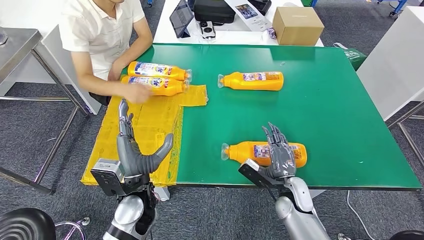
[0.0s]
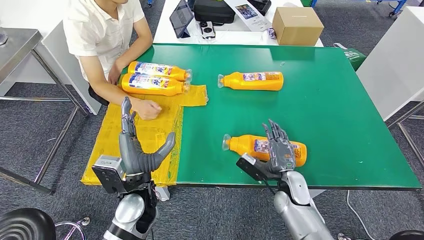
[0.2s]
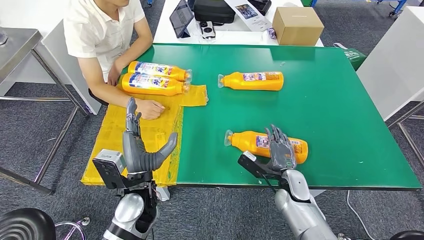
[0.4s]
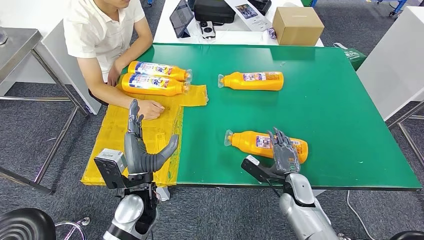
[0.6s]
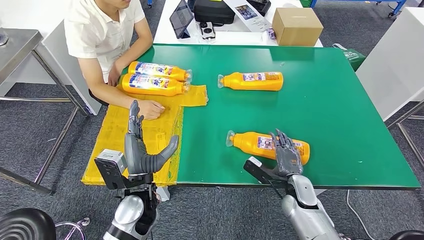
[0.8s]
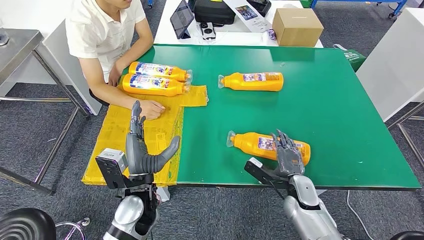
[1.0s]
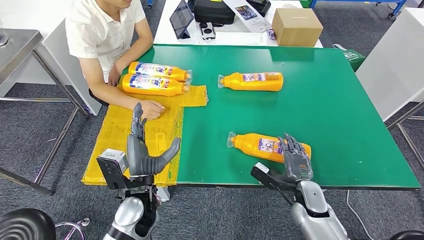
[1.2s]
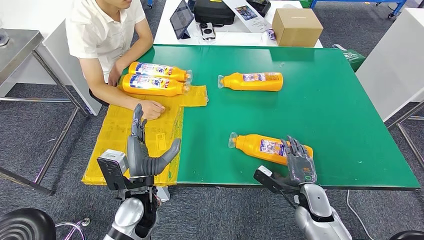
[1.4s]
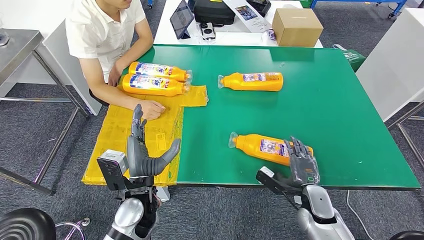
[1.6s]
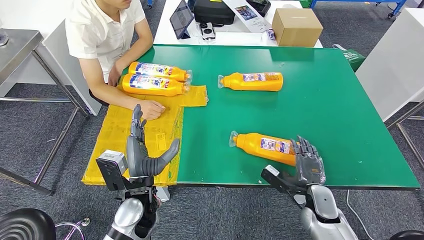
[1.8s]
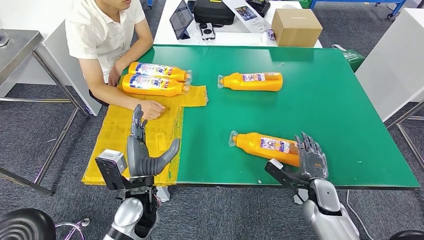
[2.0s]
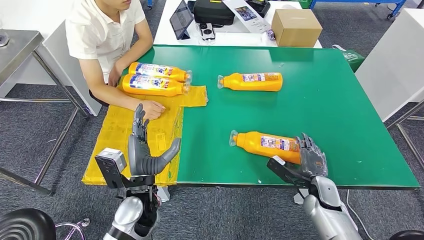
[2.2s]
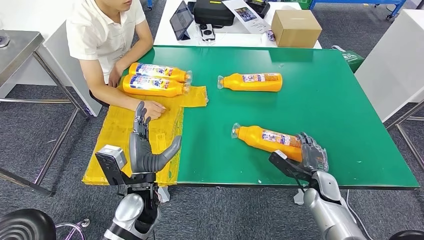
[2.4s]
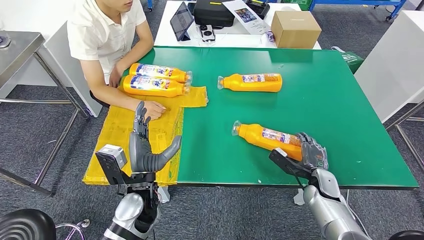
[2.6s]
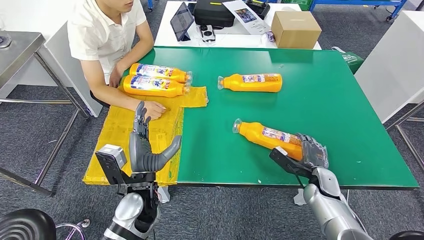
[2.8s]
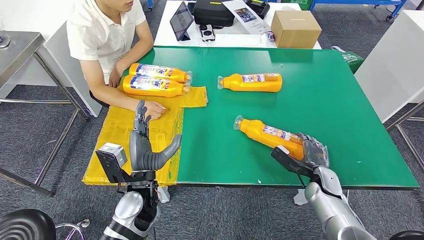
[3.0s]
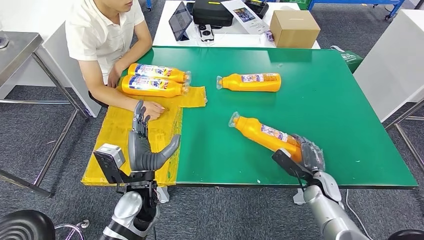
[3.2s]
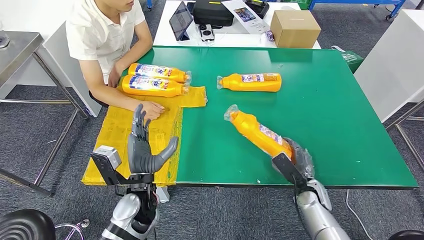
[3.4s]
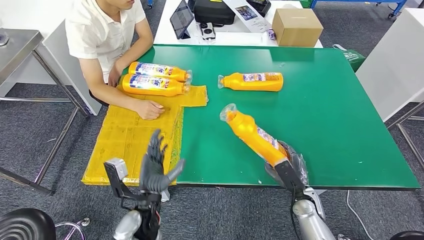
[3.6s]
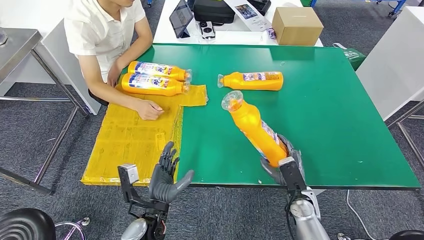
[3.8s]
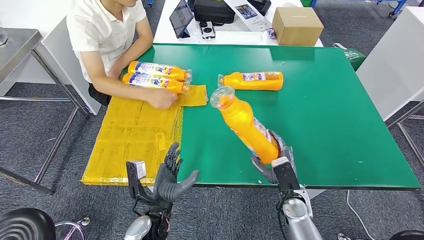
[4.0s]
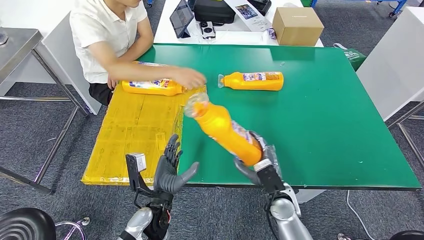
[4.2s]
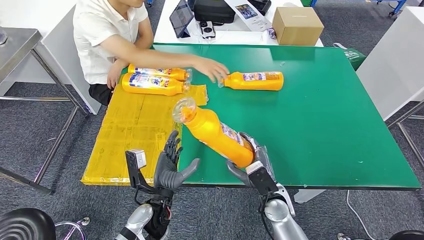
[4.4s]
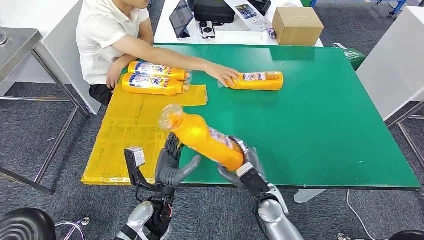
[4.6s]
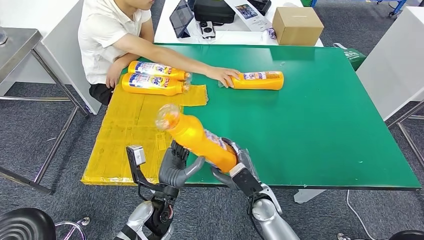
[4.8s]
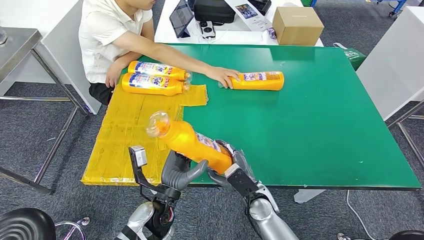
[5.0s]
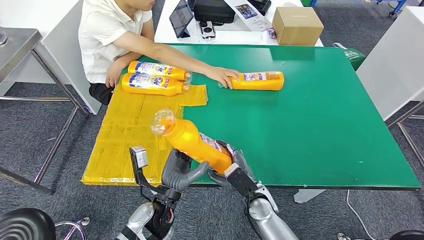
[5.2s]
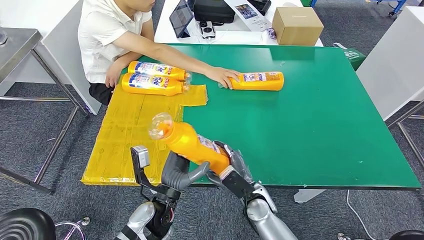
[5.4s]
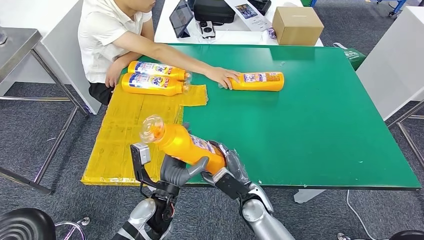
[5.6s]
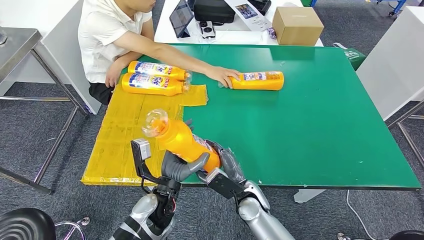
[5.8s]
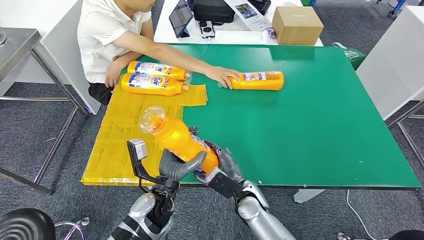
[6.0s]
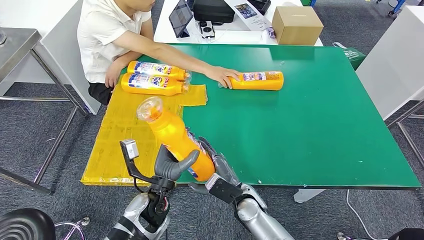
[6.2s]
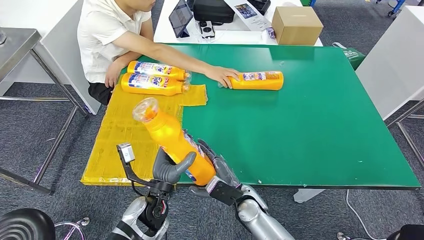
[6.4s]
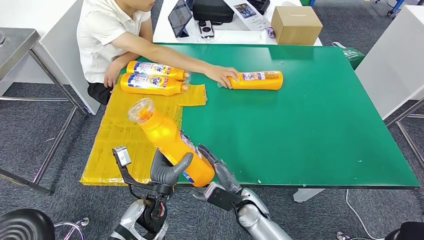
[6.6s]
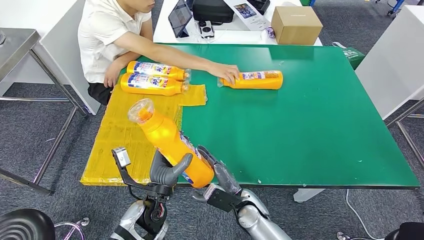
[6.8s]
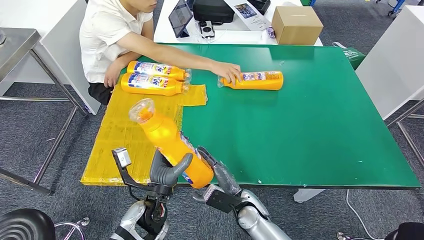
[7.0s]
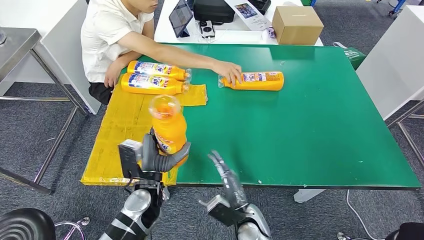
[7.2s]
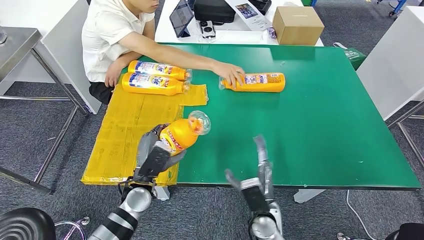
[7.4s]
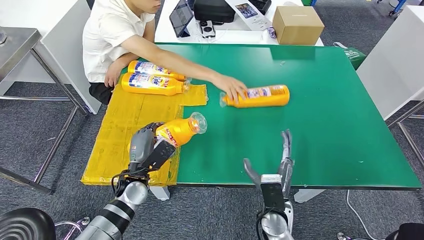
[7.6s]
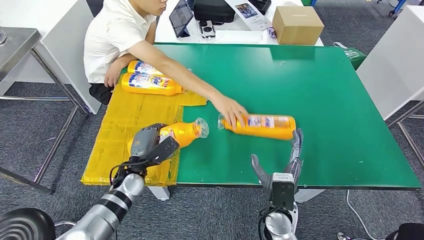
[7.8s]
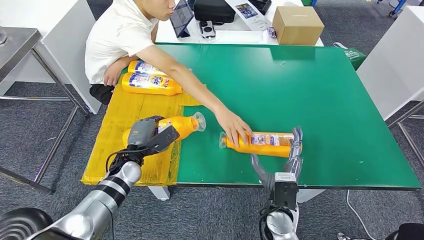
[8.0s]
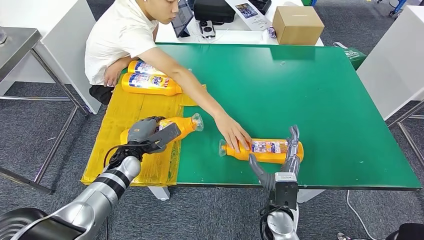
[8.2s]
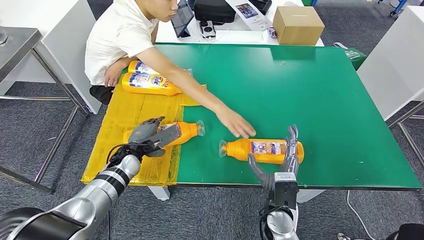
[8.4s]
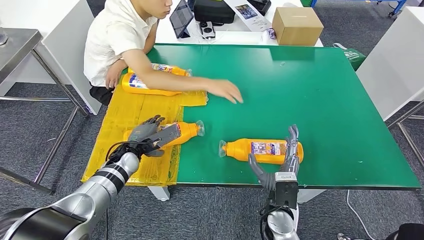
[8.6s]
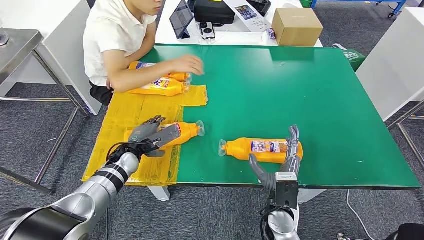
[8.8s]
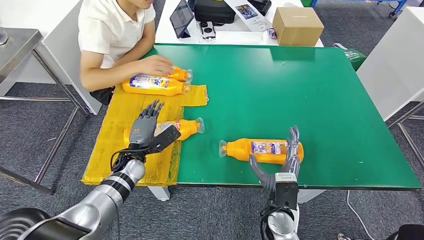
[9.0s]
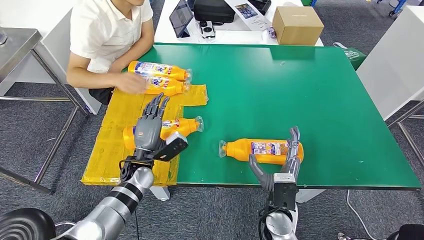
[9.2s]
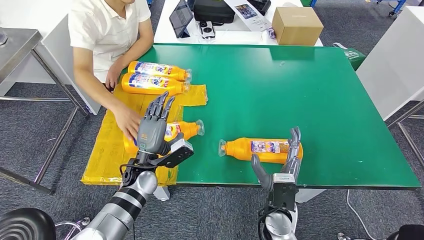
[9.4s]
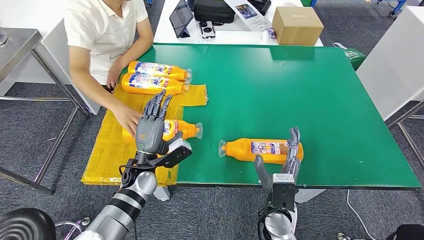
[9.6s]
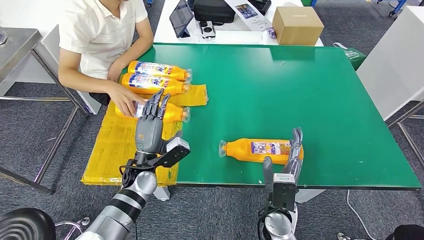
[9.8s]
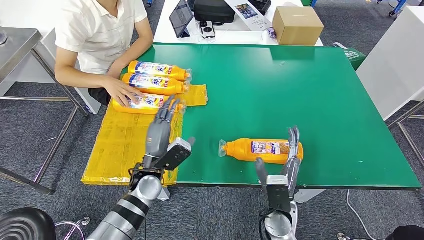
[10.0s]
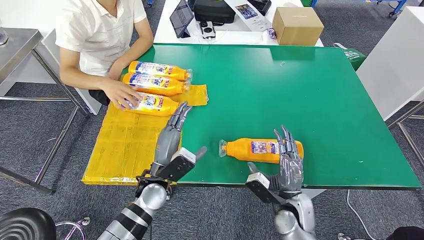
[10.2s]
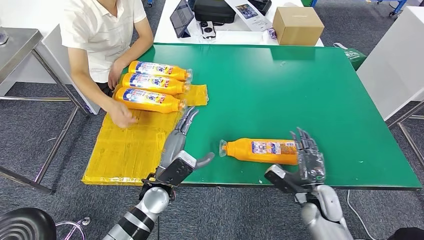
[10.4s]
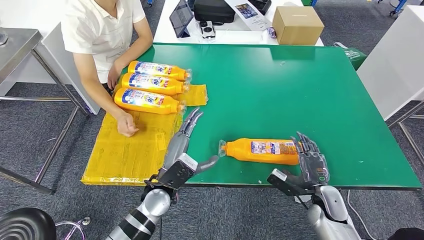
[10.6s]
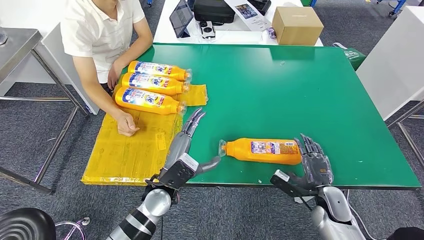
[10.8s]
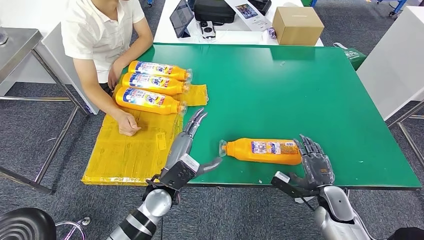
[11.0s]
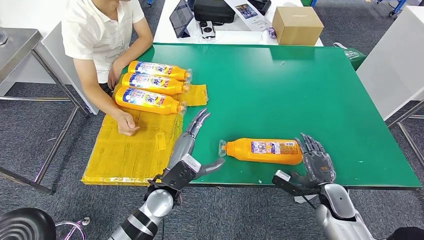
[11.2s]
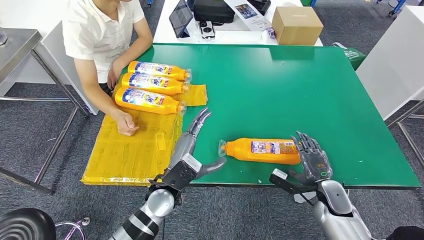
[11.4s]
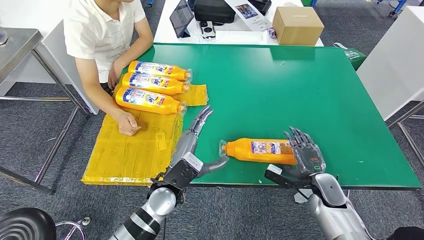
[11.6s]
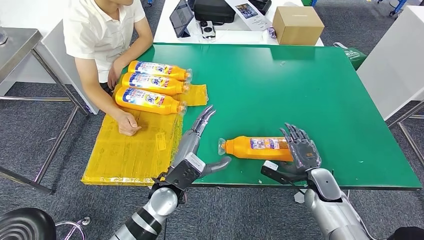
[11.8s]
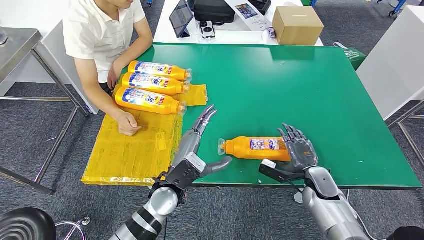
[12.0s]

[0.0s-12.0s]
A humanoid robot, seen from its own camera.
Step, 0.0s to 5.4s: Pick up the fast-moving consumer goods bottle from the table.
Step, 5.6s to 9.4s: Flip the fast-moving consumer goods bottle to the front side.
0.0s to 1.6s: The right hand goes some 5 cm to the right.
1.6s to 3.0s: The right hand goes approximately 5 cm forward.
4.4s to 6.0s: The right hand moves to the left, about 5 cm.
6.0s to 7.6s: The left hand shifts approximately 10 cm to the left and forward; the right hand heads to the right, covering some 5 cm.
7.6s to 9.0s: The left hand moves forward, approximately 5 cm.
10.4s to 12.0s: The right hand changes place by some 5 cm.

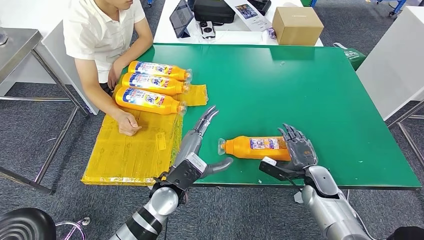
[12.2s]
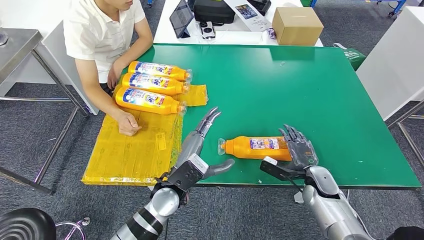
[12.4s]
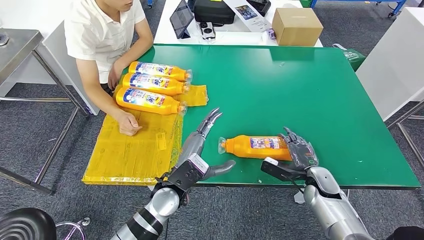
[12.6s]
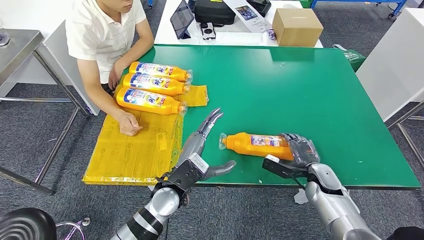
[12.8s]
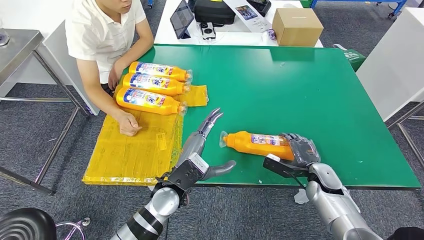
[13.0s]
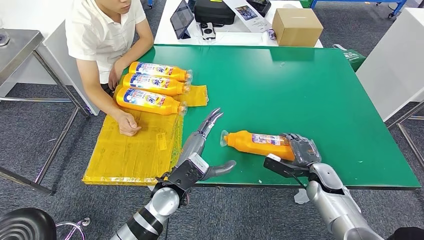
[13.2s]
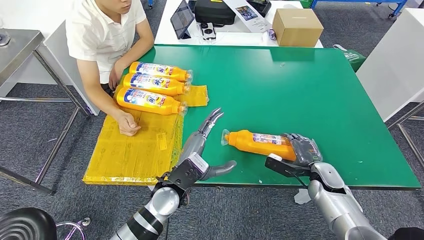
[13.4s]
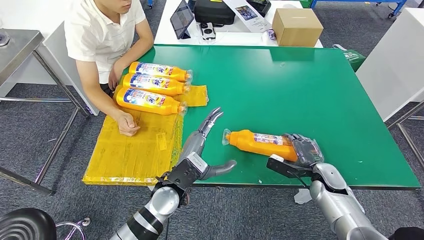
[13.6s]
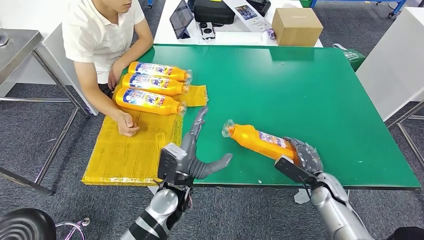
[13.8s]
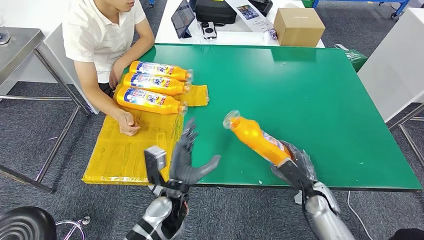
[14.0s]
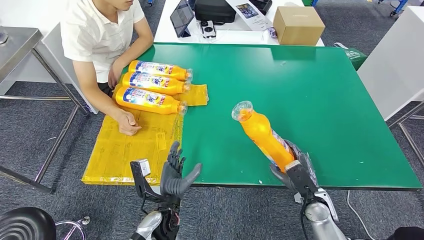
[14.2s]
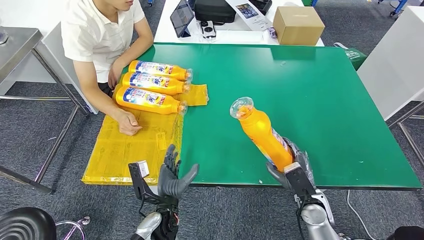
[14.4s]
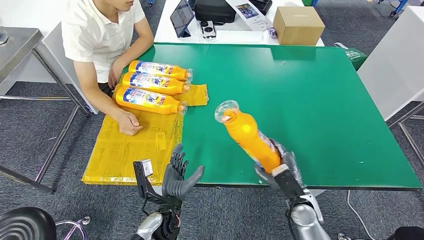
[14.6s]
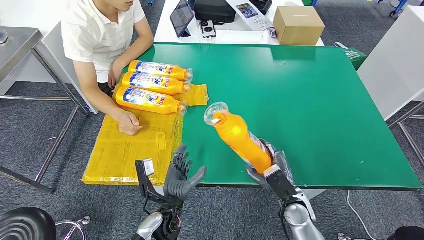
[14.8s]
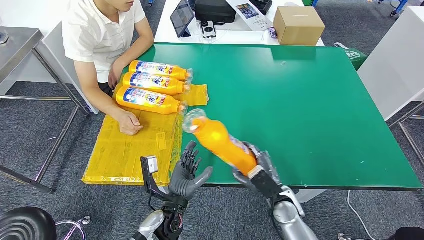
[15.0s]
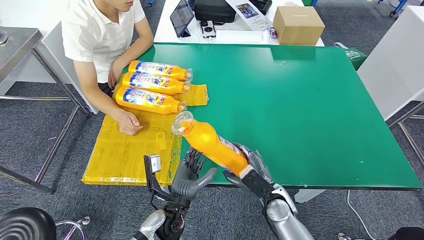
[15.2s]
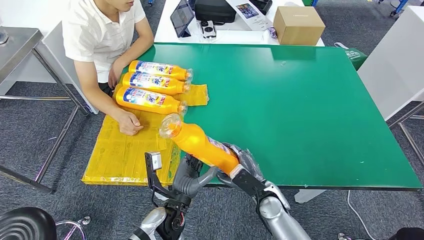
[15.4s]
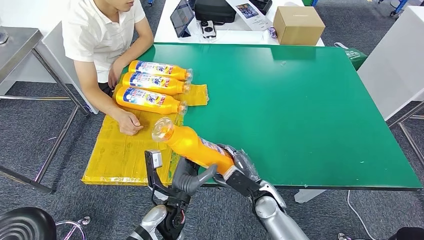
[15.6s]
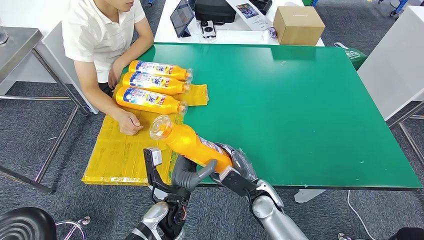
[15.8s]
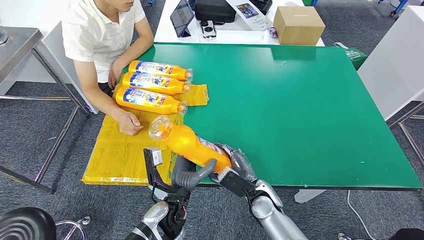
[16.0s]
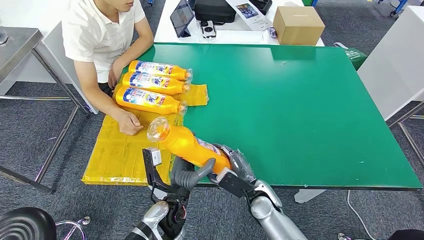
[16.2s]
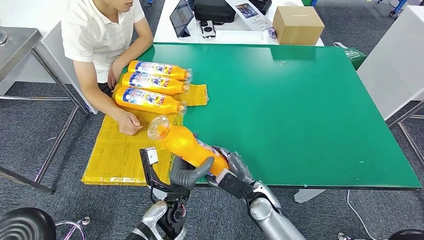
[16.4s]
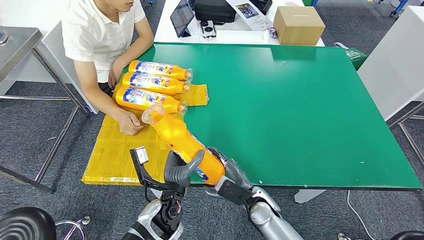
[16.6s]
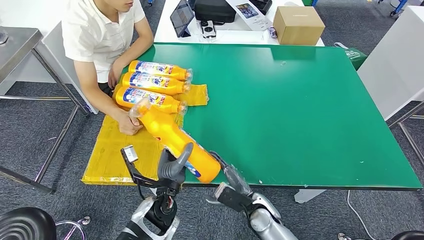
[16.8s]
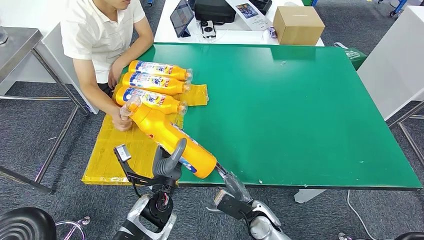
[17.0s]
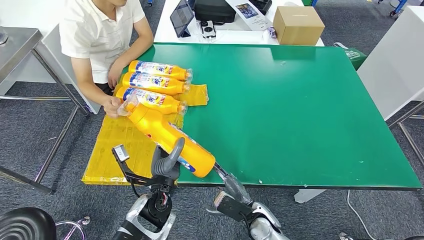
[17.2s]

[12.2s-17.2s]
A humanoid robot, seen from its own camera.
Step, 12.2s to 16.6s: Pick up the fast-moving consumer goods bottle from the table.
13.8s to 15.6s: The right hand is displaced to the left by about 20 cm.
15.6s to 17.2s: The right hand moves backward, approximately 5 cm.
